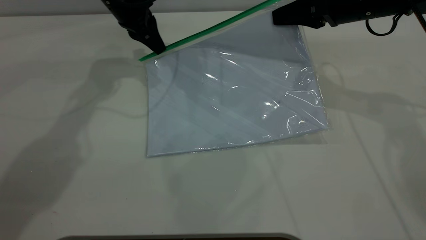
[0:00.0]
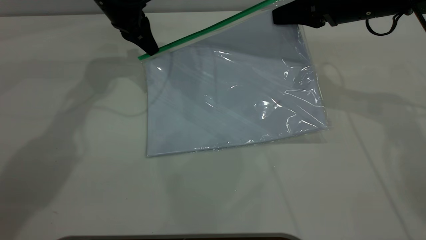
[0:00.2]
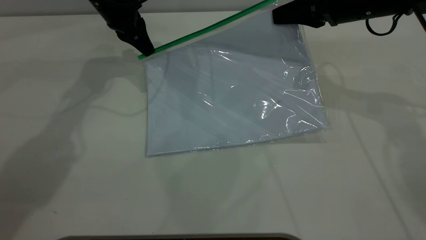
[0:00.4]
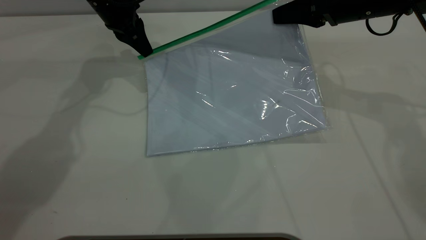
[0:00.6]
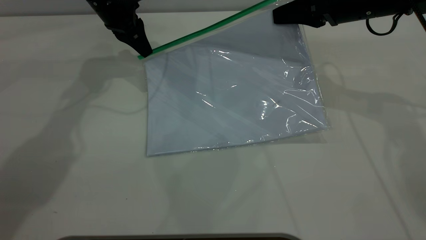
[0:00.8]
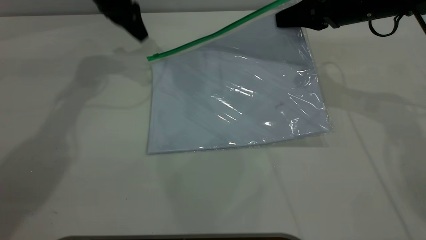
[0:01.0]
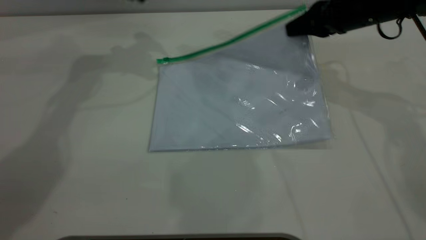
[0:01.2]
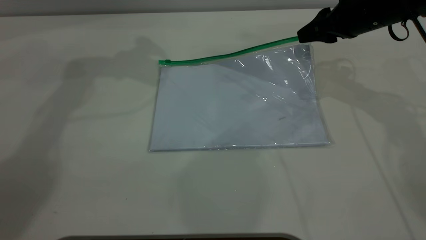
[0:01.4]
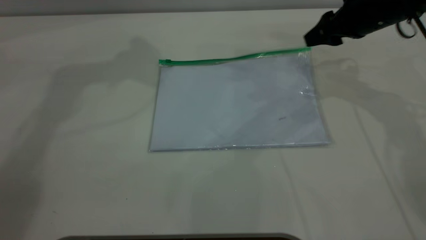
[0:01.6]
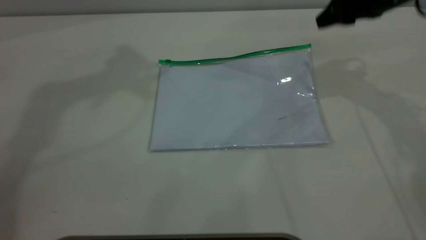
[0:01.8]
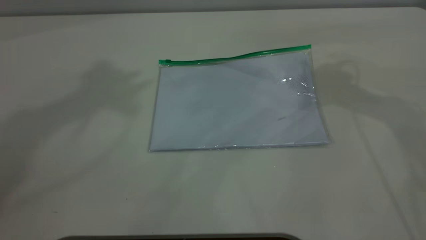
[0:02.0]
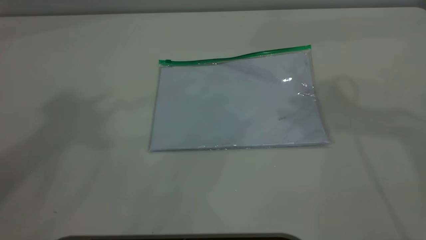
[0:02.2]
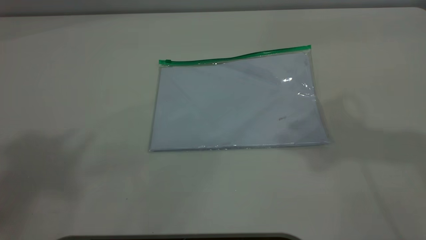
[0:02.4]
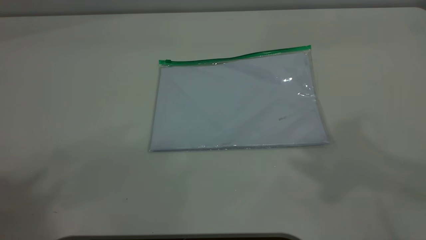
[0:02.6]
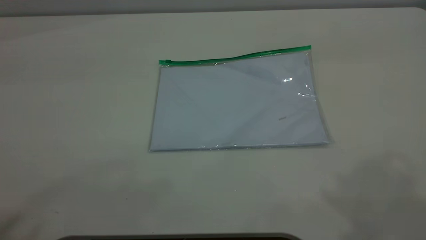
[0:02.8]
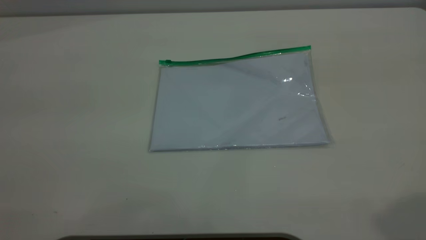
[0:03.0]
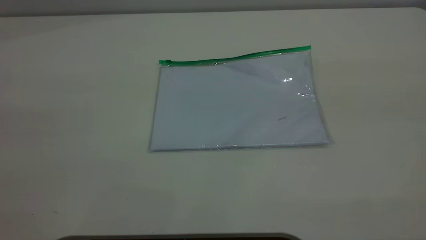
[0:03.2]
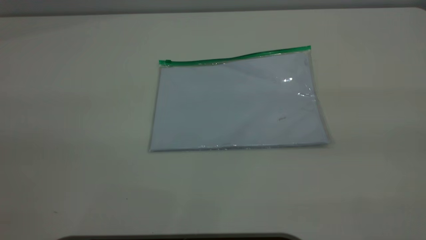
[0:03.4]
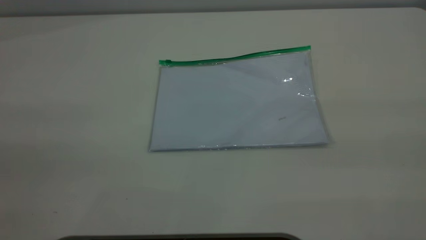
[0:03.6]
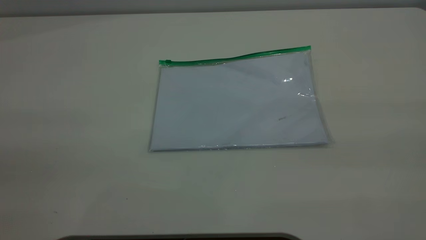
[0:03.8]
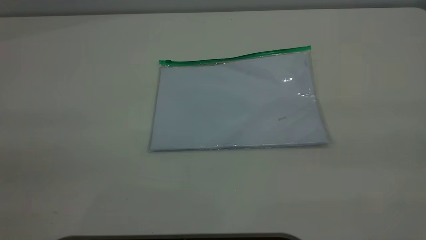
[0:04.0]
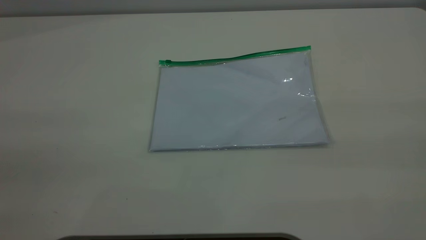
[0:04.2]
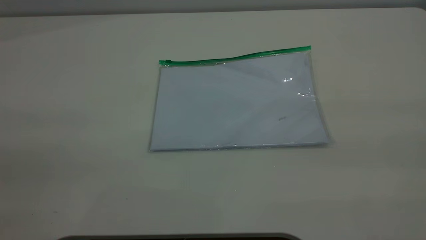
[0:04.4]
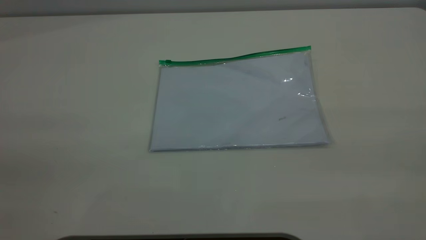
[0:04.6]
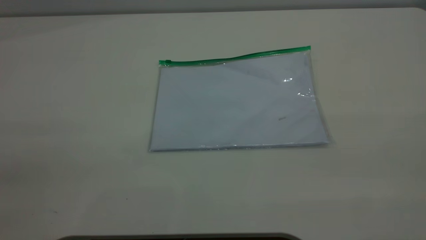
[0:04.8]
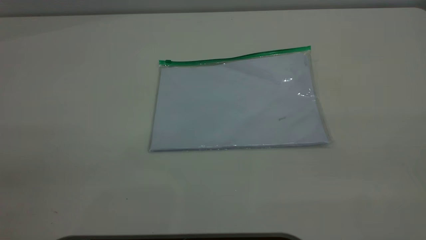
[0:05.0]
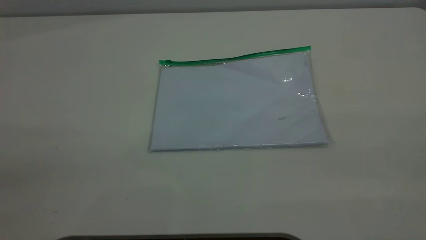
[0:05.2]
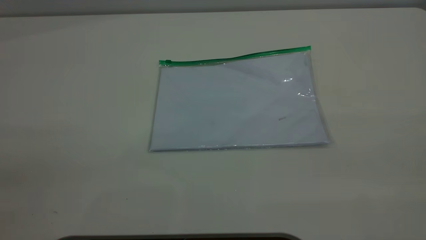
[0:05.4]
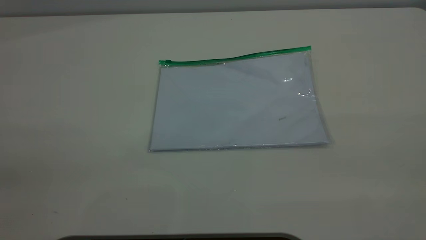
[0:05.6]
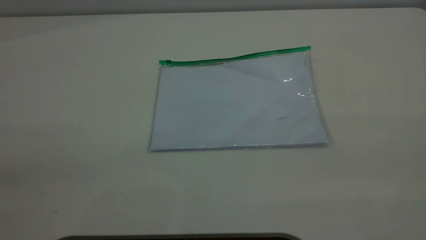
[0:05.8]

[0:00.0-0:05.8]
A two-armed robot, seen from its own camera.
Step, 0:01.0 to 0:01.6: Place the transparent plastic bag.
0:00.0 to 0:01.4: The left gripper goes about 20 cm upward, and opens its fingers, while the right gripper opens its fingers.
0:01.4 to 0:02.8: The left gripper is displaced backward and upward by some 40 cm. The right gripper heads upward and backward, covering roughly 40 cm.

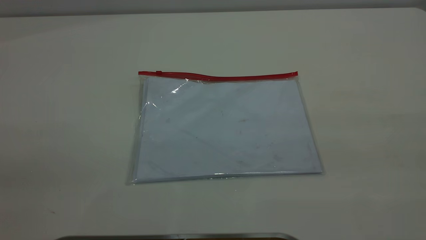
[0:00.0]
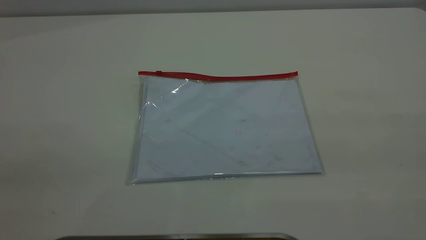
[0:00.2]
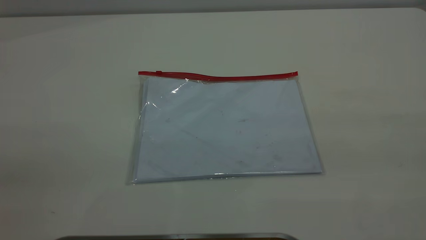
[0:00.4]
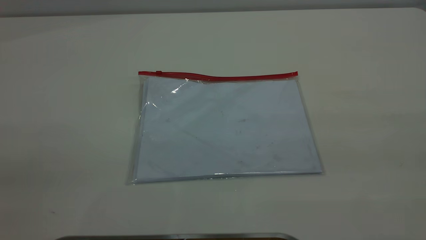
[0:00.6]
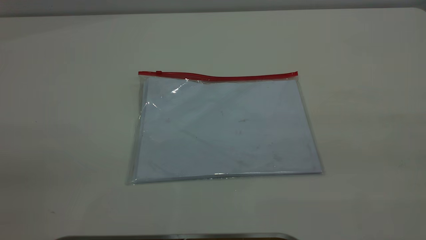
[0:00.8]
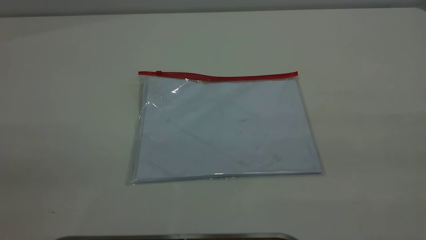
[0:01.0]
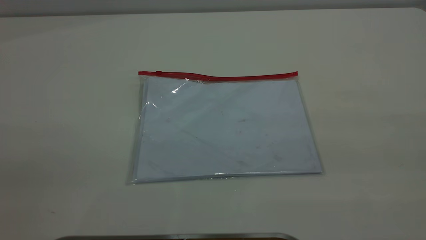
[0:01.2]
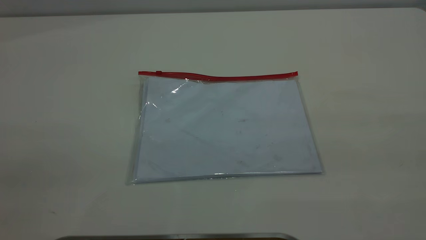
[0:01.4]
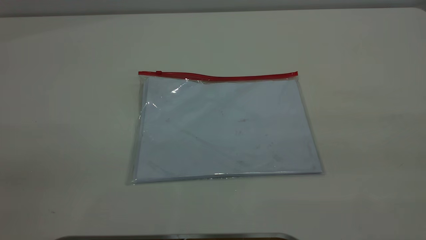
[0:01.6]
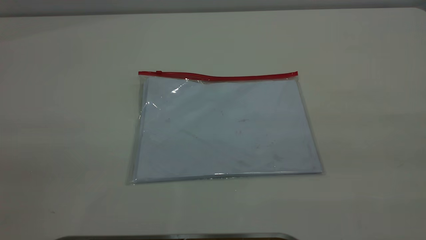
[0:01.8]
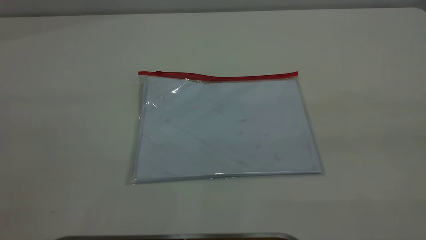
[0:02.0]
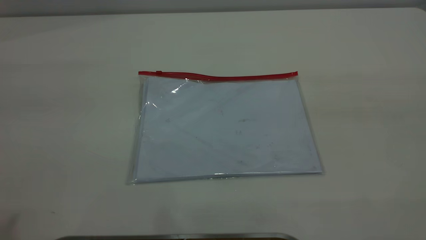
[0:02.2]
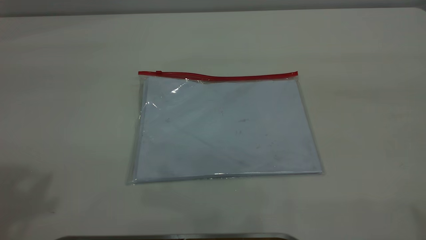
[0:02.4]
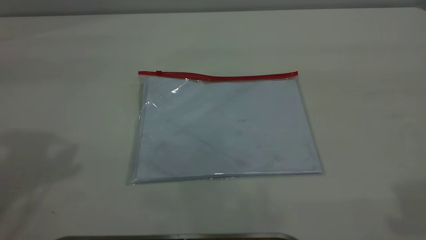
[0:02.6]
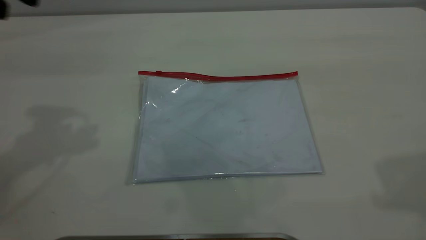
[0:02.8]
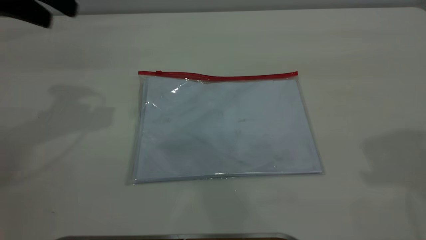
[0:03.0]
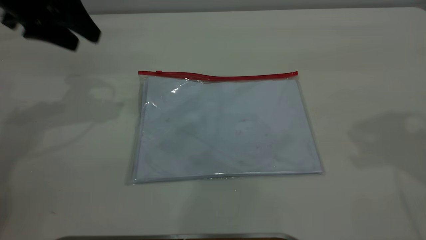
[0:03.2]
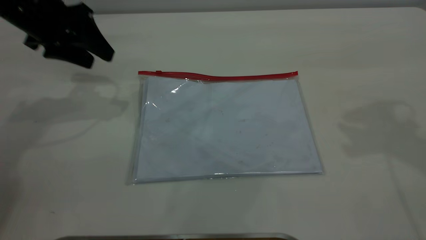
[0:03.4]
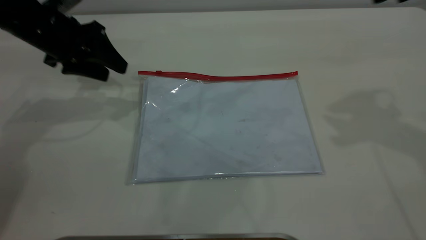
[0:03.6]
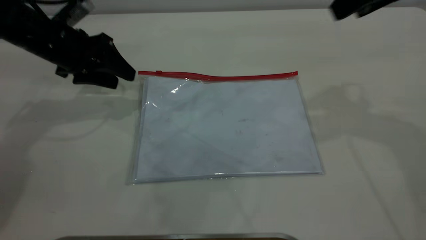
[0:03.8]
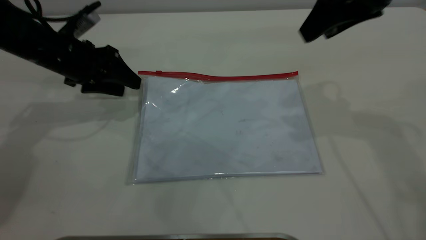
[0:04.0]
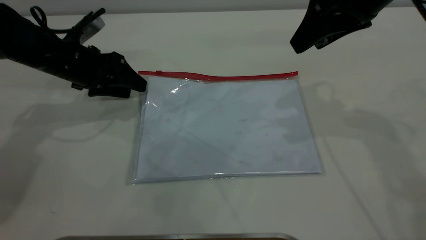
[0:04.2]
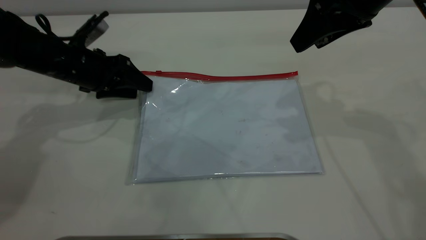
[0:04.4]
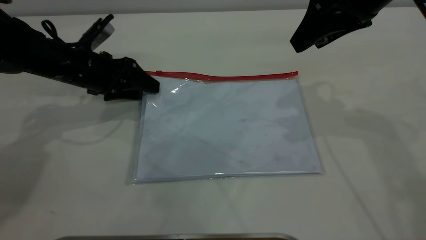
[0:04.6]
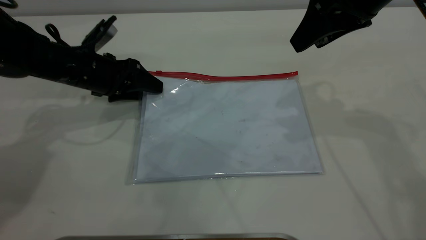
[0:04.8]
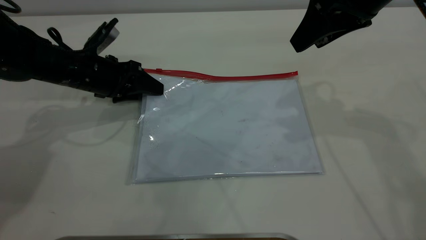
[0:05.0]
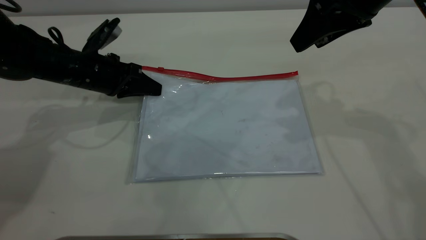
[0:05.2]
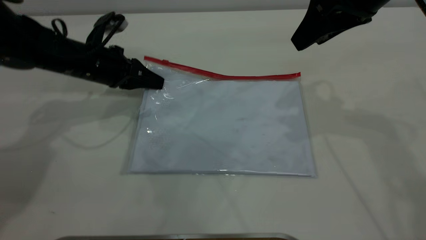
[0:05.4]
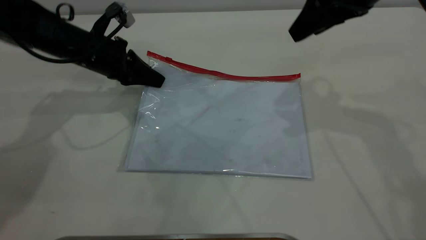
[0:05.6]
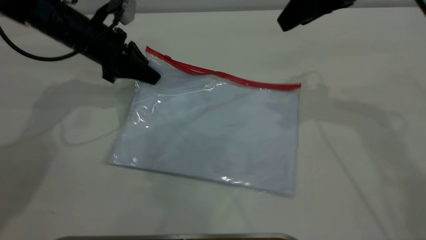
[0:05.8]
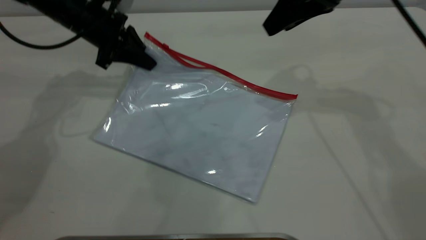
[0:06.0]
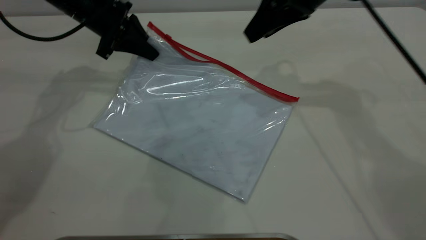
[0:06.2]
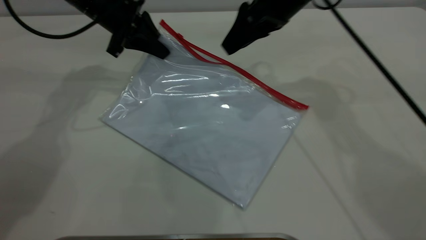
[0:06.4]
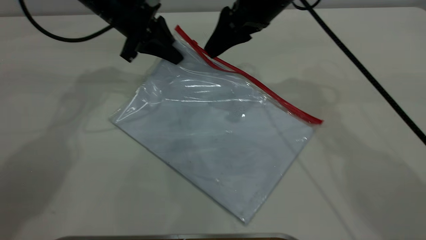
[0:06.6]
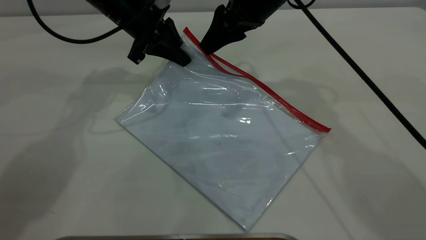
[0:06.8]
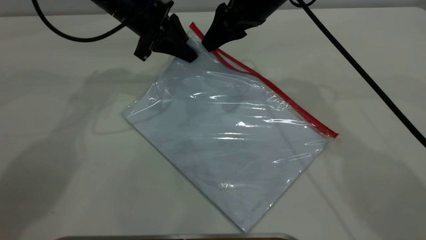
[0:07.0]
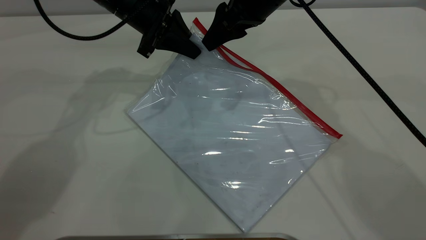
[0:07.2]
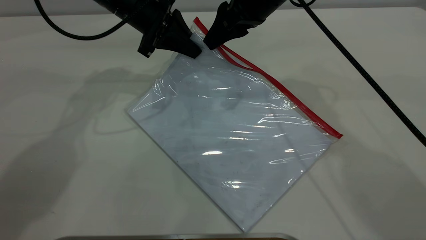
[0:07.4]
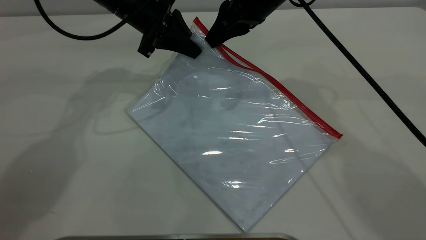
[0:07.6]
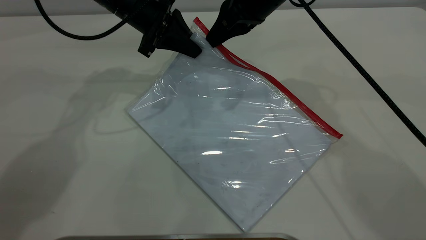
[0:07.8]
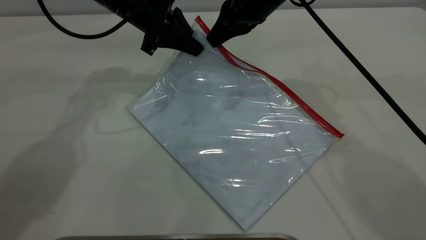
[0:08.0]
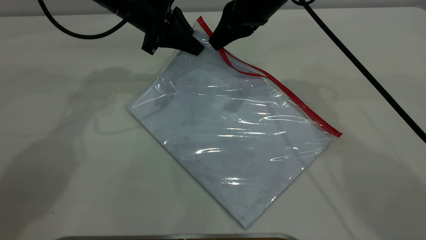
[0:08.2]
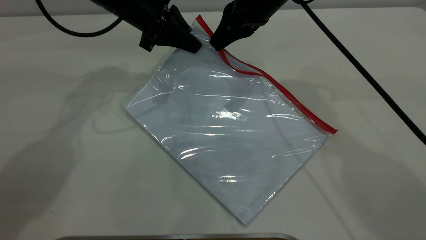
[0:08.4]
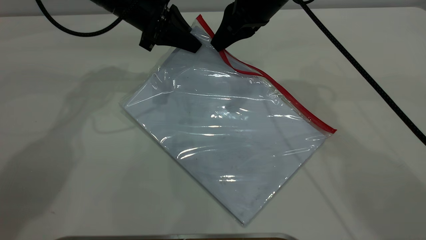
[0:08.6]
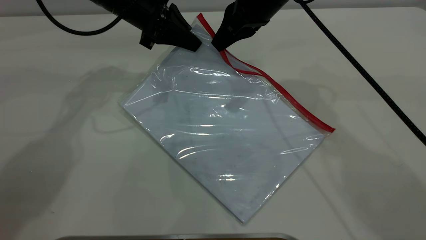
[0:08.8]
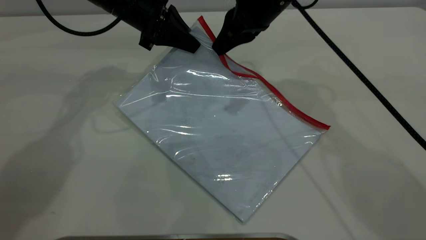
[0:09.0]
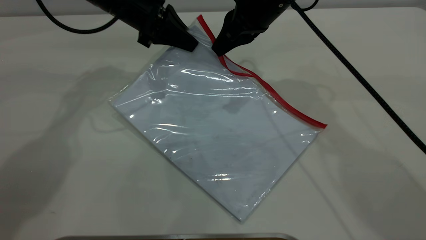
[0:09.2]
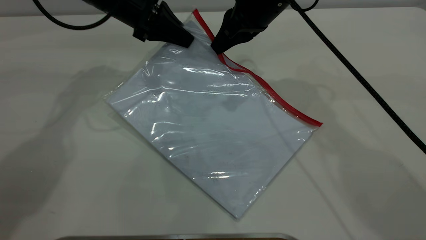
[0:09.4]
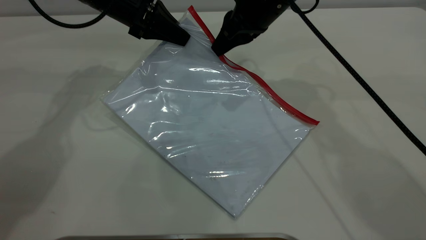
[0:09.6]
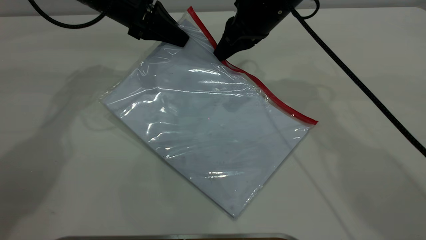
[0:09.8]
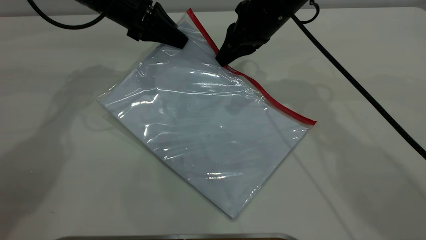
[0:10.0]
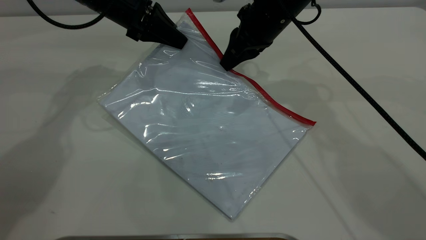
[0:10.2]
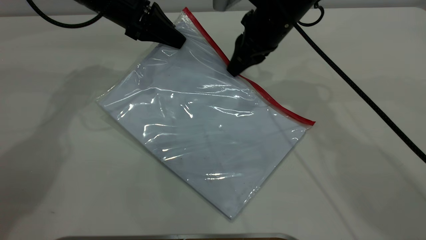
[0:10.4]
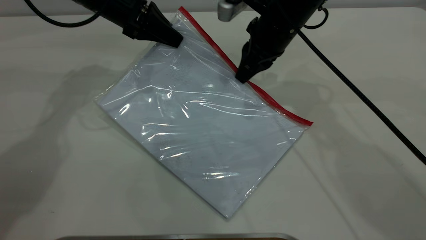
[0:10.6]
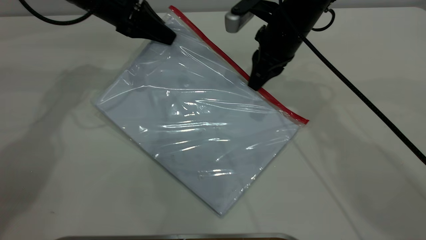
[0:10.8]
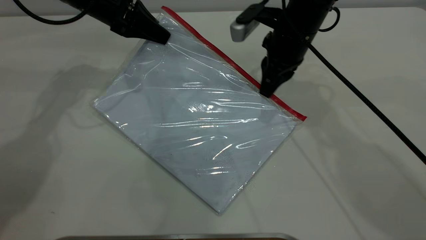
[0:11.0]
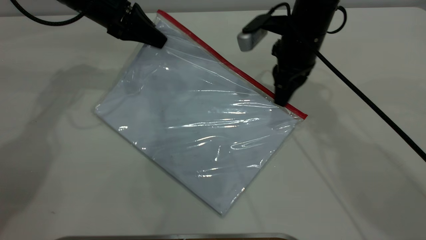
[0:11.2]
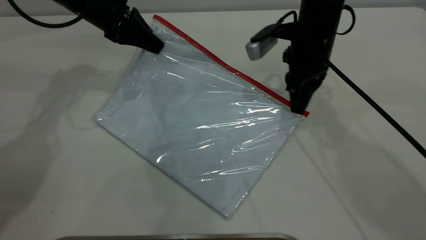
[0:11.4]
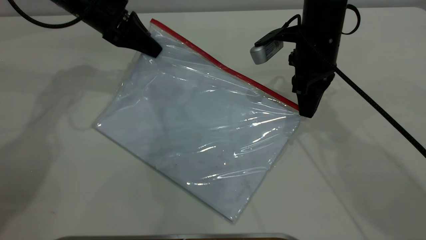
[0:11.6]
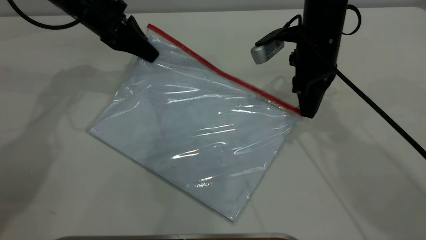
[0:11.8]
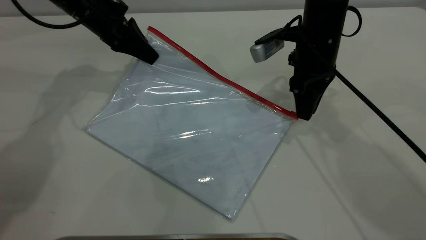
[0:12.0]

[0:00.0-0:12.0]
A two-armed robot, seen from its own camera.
Step, 0:00.0 to 0:05.6: Pick up the transparent plastic bag with the left gripper.
0:00.0 to 0:01.6: Both grippers stay about where they are.
0:01.6 to 0:03.0: The left gripper shifts roughly 35 cm forward.
0:03.0 to 0:04.4: The left gripper moves downward, roughly 20 cm; the right gripper travels downward, forward and to the left by roughly 20 cm.
0:04.4 to 0:06.0: The right gripper travels forward by approximately 5 cm. Meanwhile the left gripper travels forward and upward by some 10 cm, and closes its fingers.
0:06.0 to 0:07.6: The left gripper shifts approximately 10 cm to the right. Meanwhile the right gripper shifts some 10 cm to the left, and closes.
0:07.6 to 0:09.0: The grippers move only a little.
0:09.0 to 0:10.4: The grippers move only a little.
0:10.4 to 0:12.0: The right gripper ends up roughly 5 cm from where it was, and opens its fingers.
